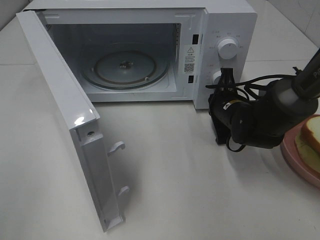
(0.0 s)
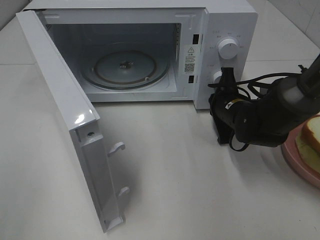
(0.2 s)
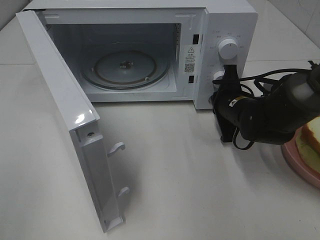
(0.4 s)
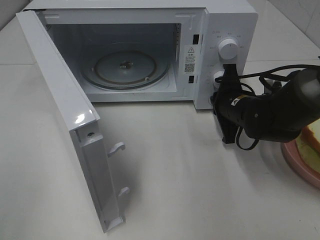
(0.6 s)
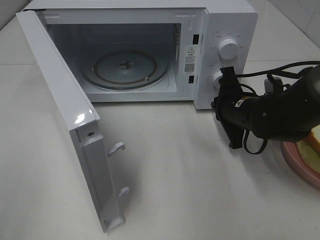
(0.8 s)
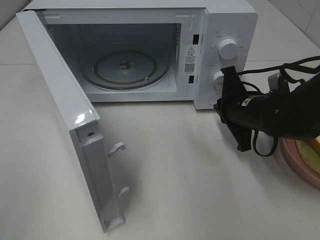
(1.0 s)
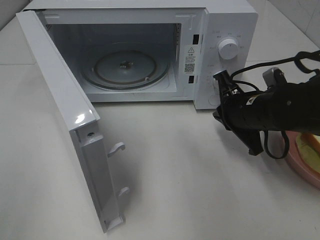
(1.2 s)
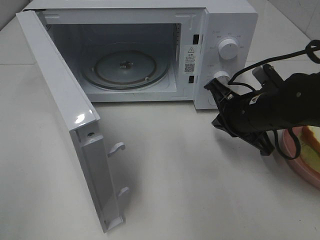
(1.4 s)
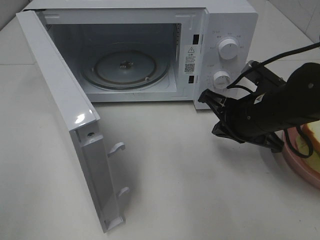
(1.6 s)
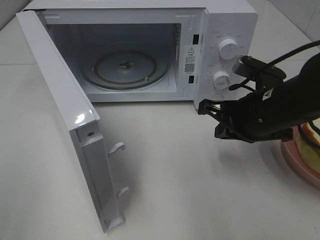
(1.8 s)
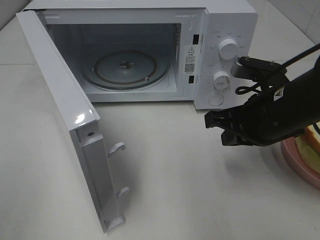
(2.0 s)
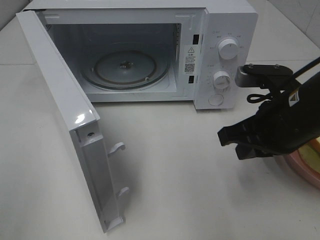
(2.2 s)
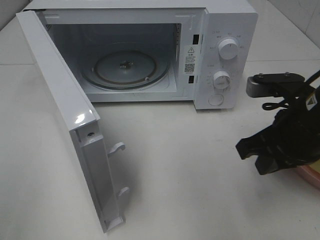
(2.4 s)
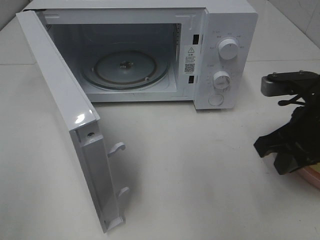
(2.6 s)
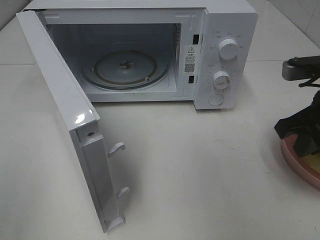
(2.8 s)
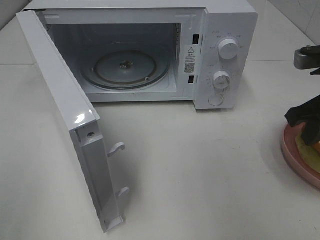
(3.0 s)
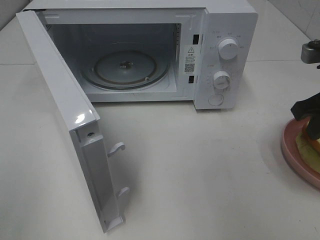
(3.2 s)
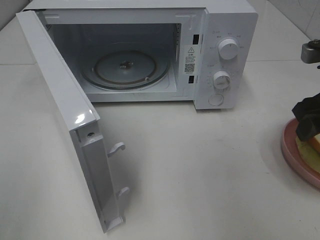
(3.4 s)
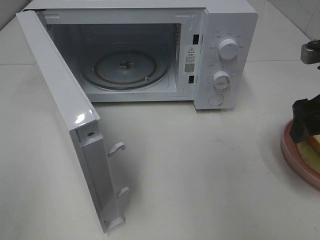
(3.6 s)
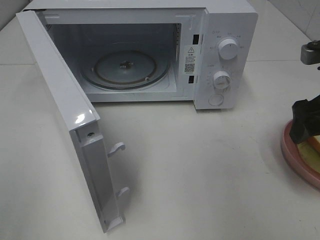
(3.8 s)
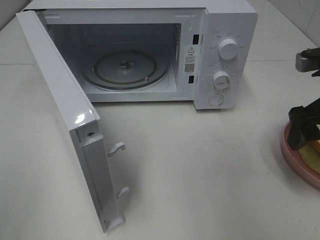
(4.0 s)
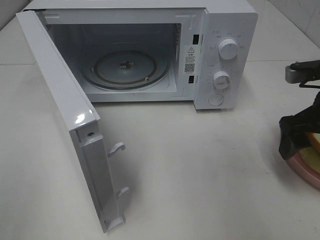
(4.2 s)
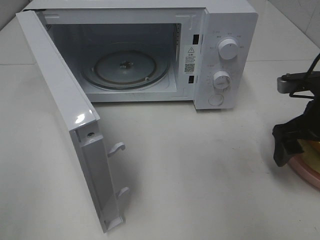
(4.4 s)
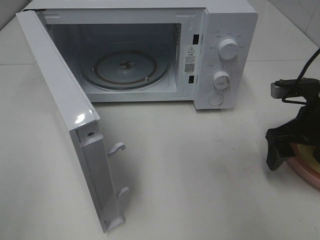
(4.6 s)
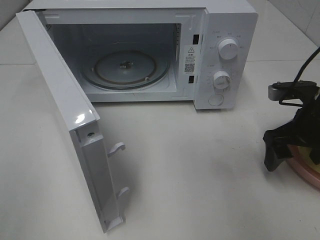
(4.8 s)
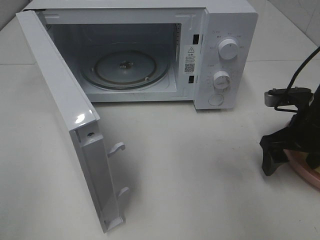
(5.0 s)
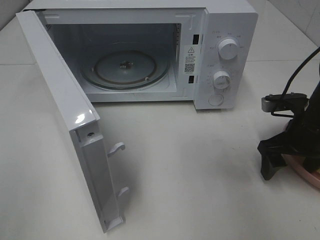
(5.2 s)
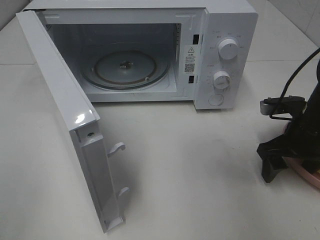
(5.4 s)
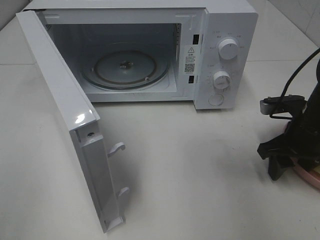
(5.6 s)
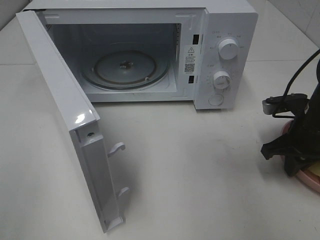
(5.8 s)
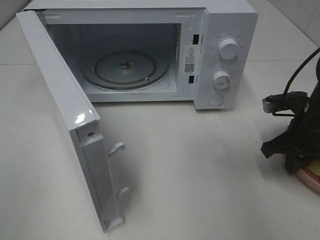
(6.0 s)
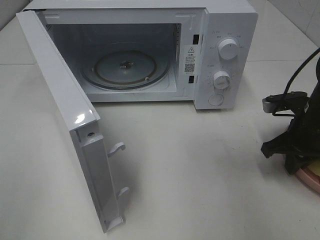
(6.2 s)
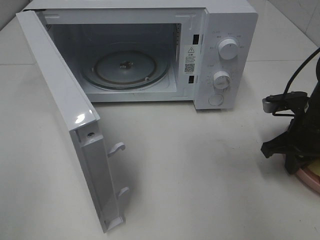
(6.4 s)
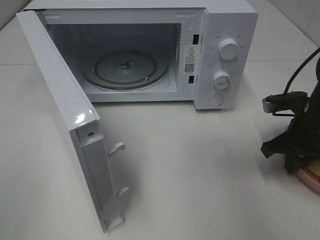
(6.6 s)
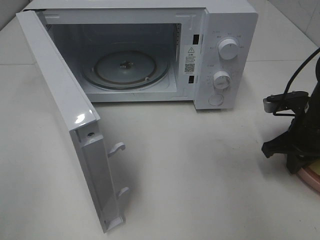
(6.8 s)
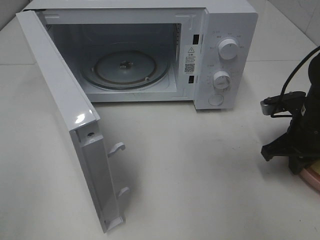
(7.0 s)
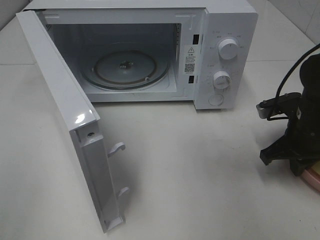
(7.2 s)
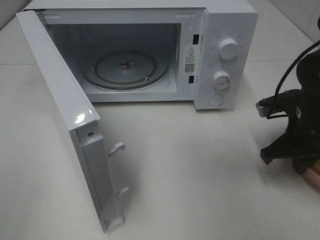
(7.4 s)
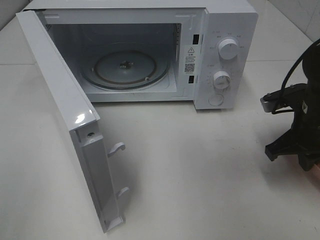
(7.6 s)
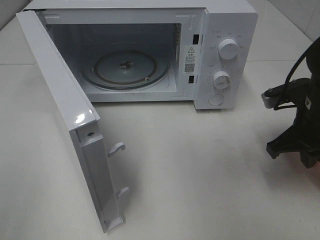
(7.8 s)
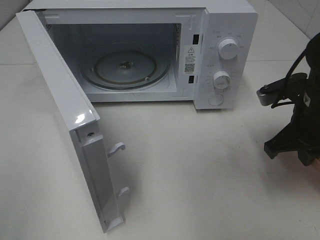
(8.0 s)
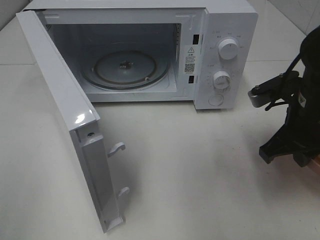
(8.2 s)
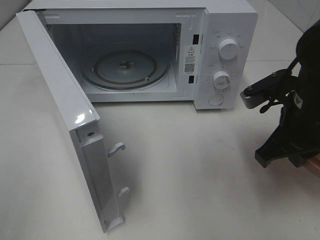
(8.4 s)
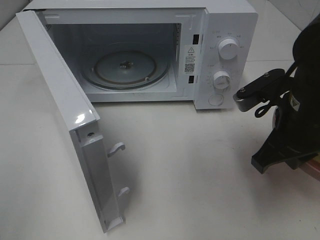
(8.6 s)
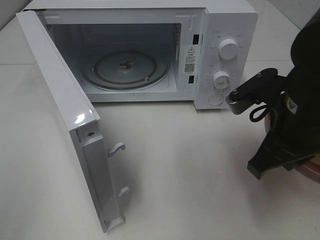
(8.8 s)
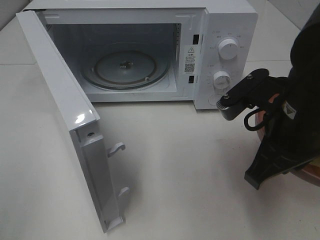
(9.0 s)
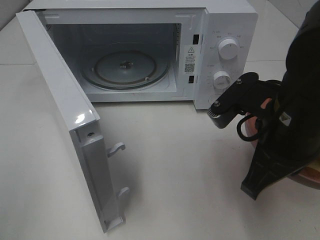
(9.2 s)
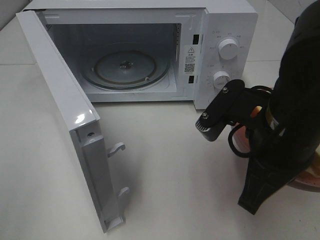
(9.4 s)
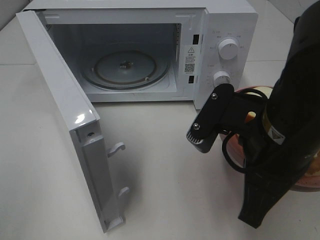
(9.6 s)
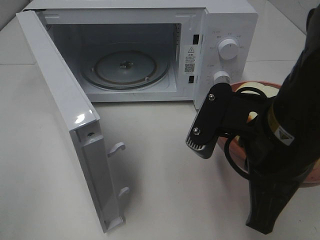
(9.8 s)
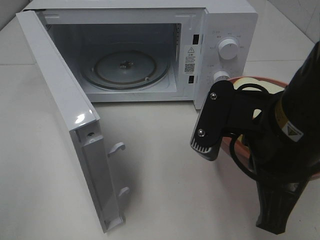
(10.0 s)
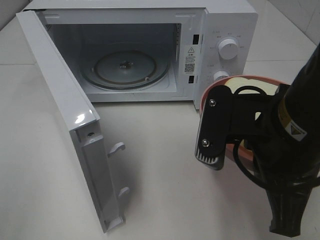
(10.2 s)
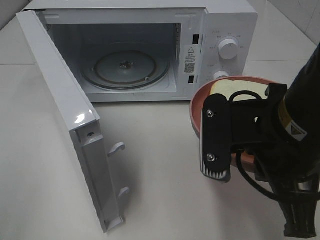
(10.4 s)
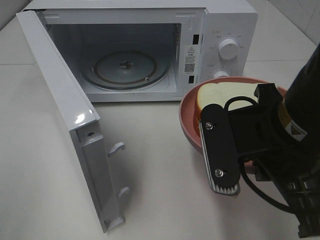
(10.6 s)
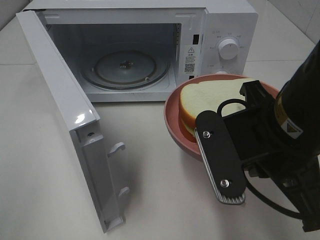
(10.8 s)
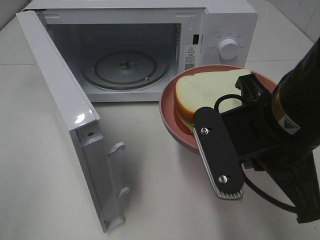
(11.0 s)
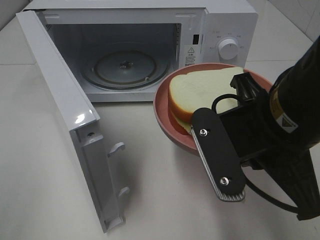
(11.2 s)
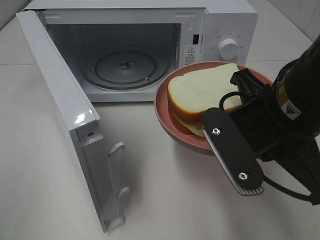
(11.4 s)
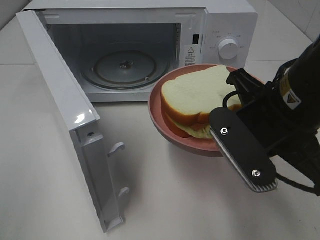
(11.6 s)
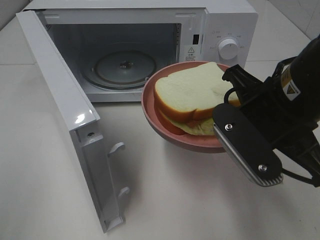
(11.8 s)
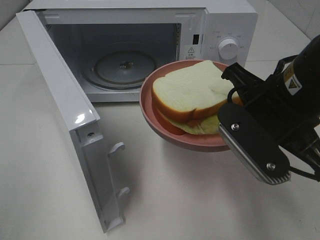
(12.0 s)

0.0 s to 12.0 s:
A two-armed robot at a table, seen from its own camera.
Task of the whole recording: Heat Sandwich.
Step, 1.0 to 5.8 s: Right hand: grab the plate with the sandwich.
0.0 to 1.6 s: The right gripper goes some 10 cm backward and upward.
1.6 to 3.0 s: The right gripper travels to the right and upward by about 10 cm.
3.0 to 4.4 s: The right gripper shifts approximately 5 cm downward, and opens.
4.4 to 6.0 s: The right gripper is displaced downward by about 5 cm, and closes its fingers.
6.0 to 7.6 s: The grippers stay close to where they were, moving slightly.
7.6 to 9.0 s: The right gripper moves to the left, backward and upward, approximately 15 cm.
9.0 to 10.4 s: The right gripper changes place by some 5 cm.
10.4 to 12.0 s: The right gripper moves roughly 5 cm.

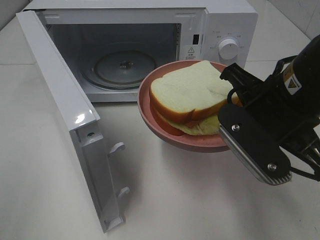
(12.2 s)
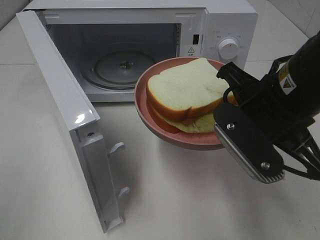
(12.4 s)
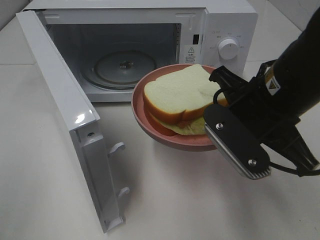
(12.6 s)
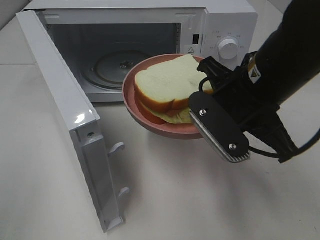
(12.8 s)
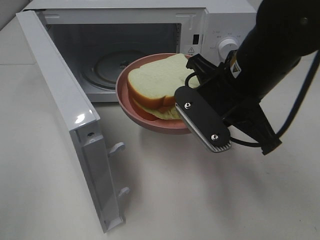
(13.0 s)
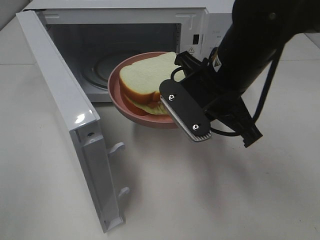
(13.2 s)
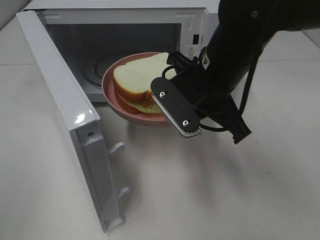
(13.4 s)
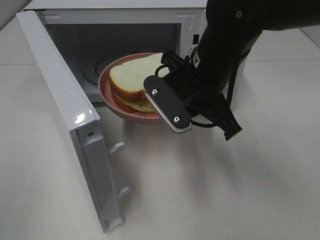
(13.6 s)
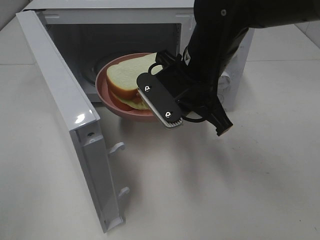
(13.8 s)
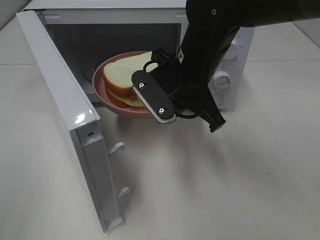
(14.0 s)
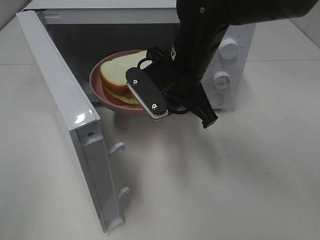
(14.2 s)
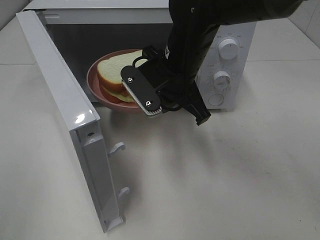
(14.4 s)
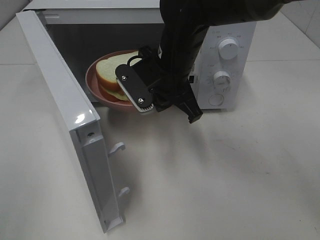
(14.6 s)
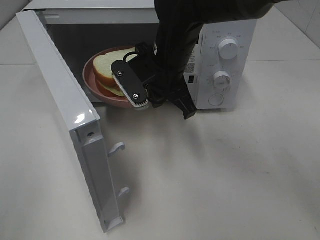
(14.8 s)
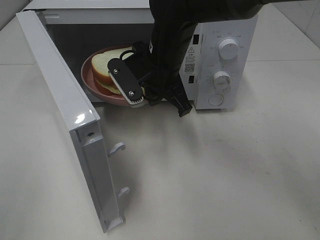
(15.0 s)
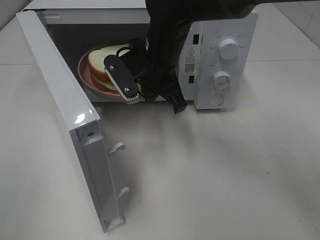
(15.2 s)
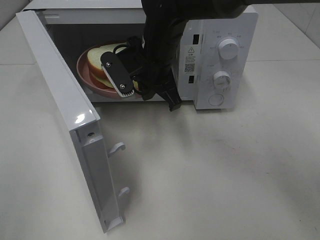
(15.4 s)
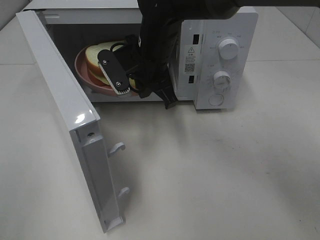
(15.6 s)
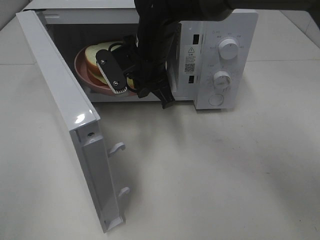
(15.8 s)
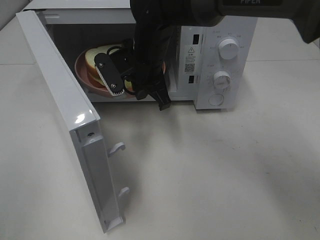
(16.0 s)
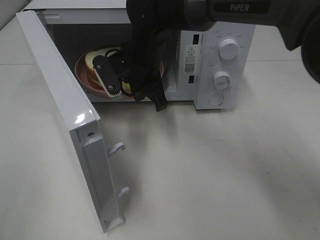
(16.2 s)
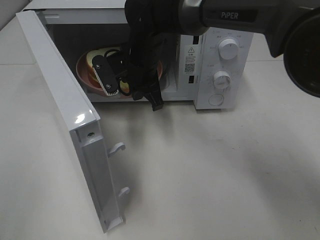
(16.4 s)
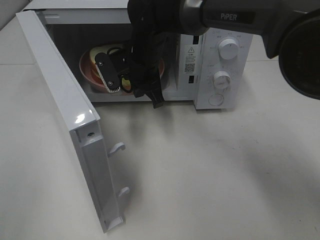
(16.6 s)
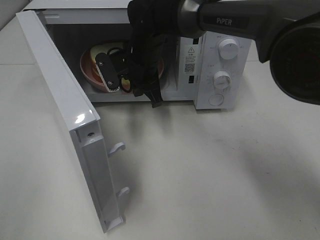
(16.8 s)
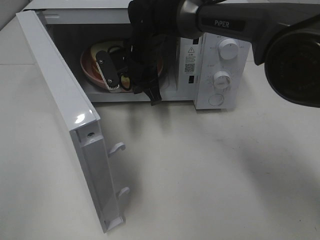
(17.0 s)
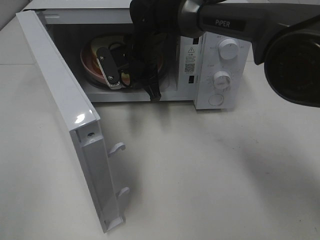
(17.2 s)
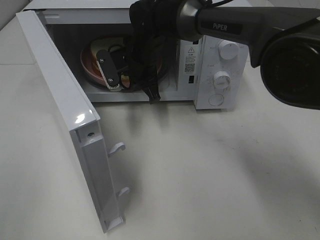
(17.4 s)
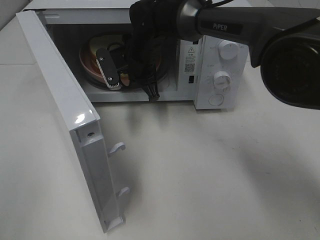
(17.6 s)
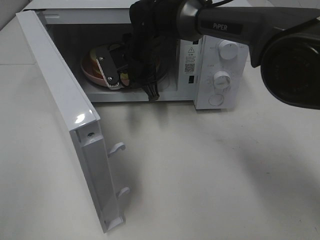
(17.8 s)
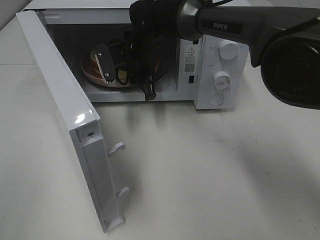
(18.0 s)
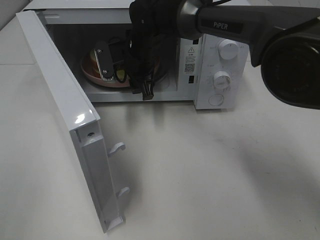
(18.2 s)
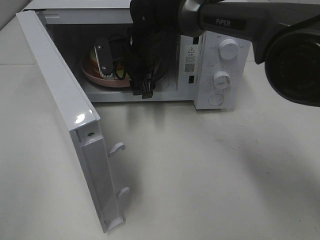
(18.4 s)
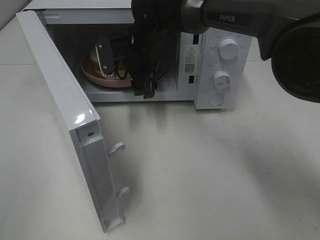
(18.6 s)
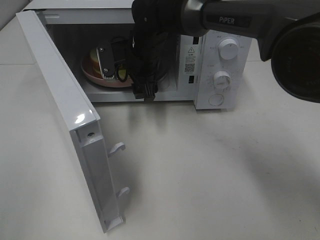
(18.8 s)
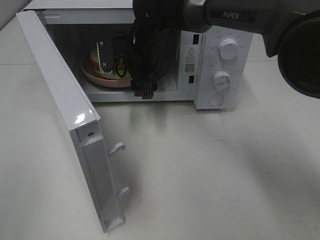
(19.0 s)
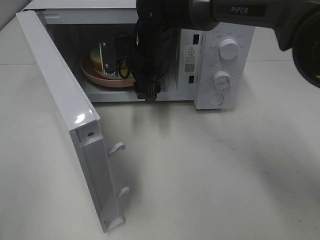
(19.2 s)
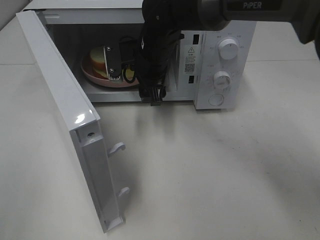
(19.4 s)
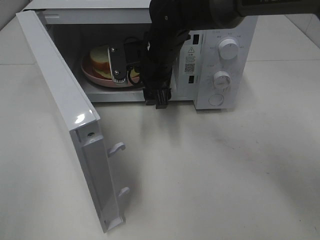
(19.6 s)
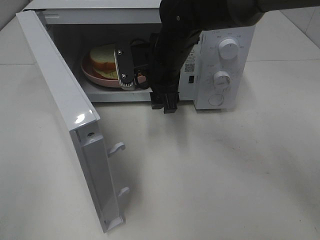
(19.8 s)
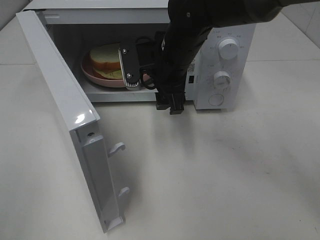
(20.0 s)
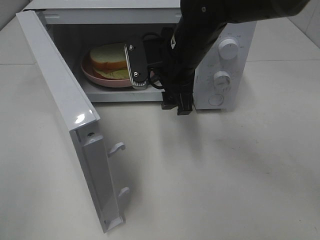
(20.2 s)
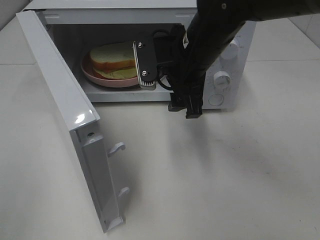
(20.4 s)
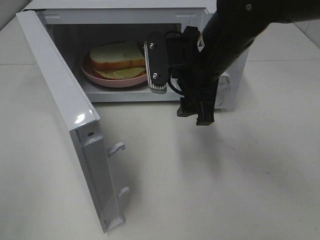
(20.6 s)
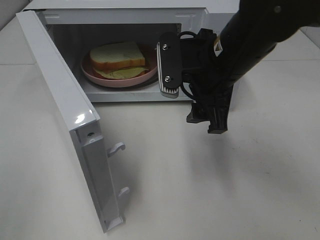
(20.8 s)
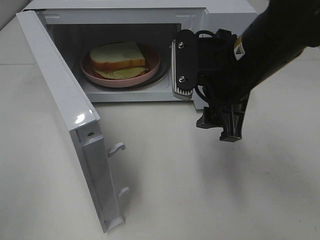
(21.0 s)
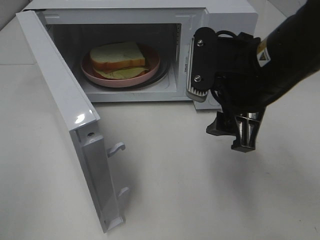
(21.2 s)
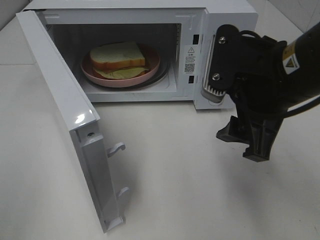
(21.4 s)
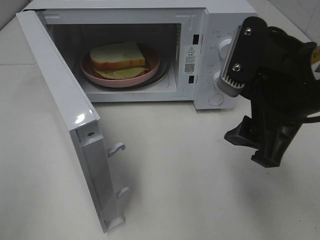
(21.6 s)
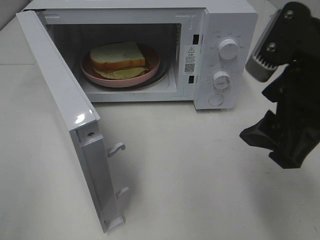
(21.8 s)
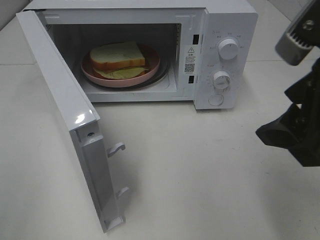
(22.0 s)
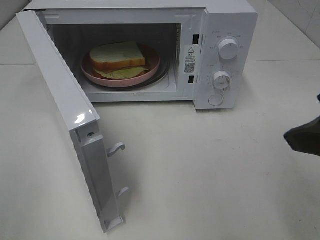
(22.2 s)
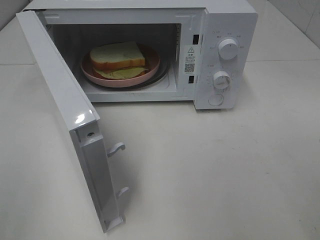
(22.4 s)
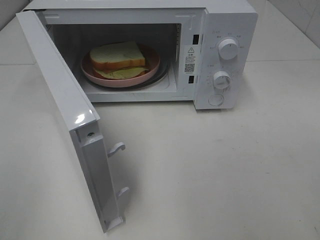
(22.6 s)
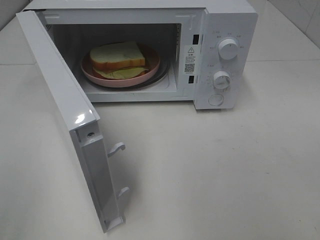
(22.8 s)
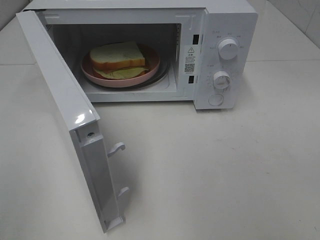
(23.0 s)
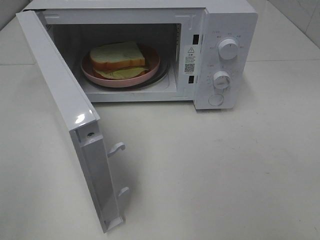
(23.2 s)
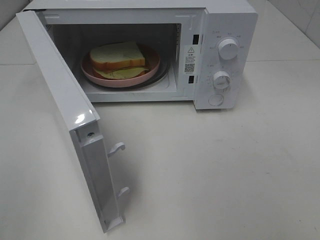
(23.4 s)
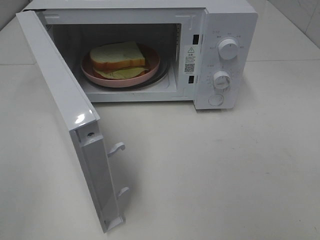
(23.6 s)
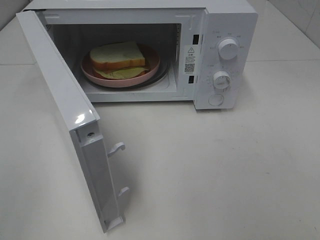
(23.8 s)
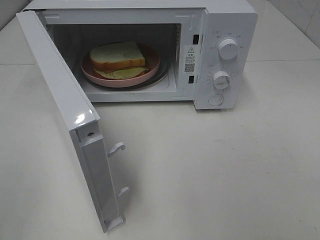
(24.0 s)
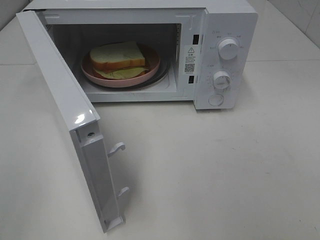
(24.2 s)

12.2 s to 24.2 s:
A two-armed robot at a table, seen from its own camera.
Task of the whole recording: Heat Sandwich.
Step, 12.2 to 18.8 s: Right hand: place the plate in the microwave.
12.2 to 13.8 s: The right gripper shifts about 15 cm forward and to the left.
13.8 to 15.2 s: The right gripper is displaced forward and to the left by some 10 cm.
15.2 to 16.6 s: The right gripper heads forward, covering approximately 5 cm.
16.6 to 18.2 s: The right gripper opens up.
18.2 to 19.8 s: The right gripper travels backward by roughly 5 cm.
19.8 to 21.2 s: The right gripper travels backward, to the right and upward by roughly 20 cm.
21.2 to 22.6 s: The right gripper travels backward, to the right and upward by about 20 cm.
